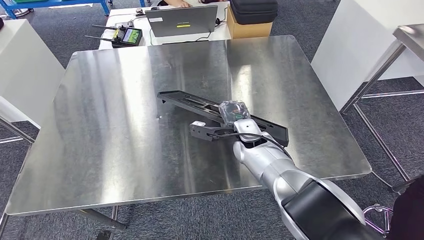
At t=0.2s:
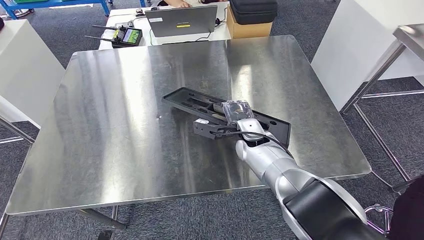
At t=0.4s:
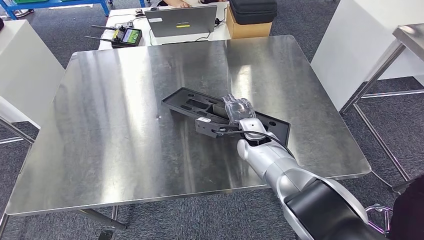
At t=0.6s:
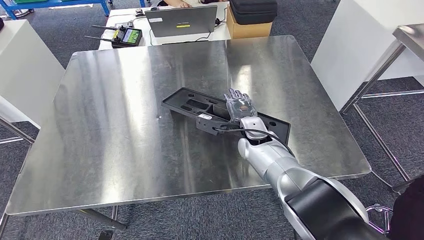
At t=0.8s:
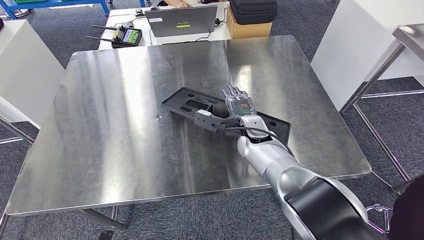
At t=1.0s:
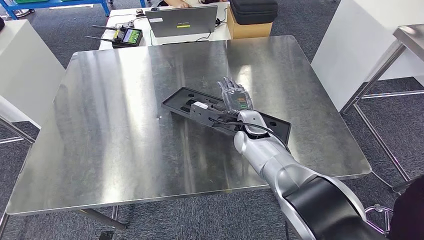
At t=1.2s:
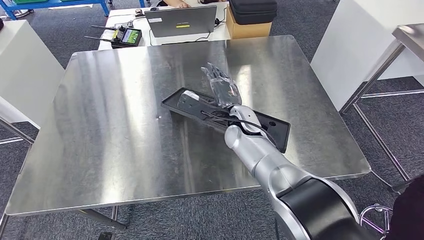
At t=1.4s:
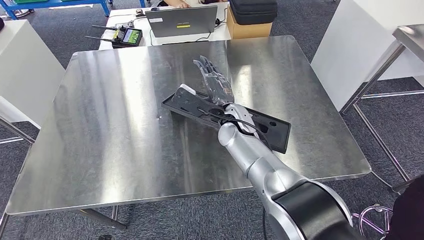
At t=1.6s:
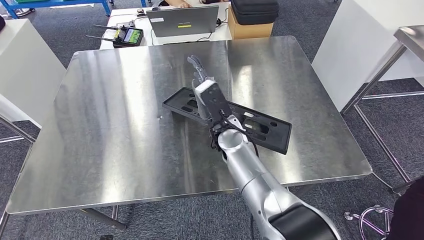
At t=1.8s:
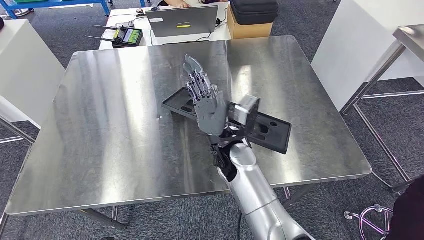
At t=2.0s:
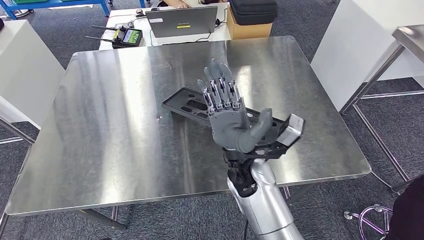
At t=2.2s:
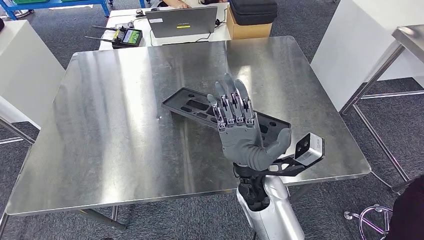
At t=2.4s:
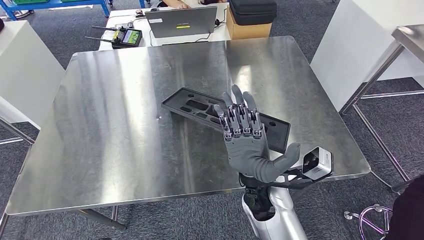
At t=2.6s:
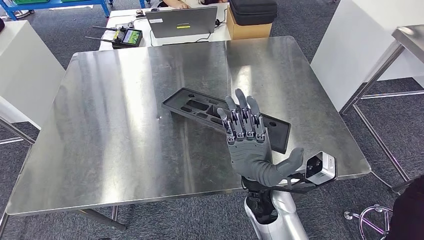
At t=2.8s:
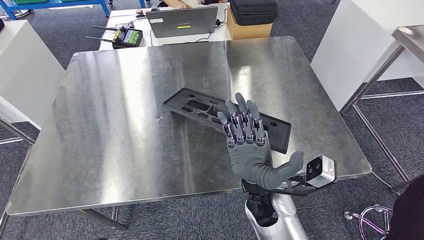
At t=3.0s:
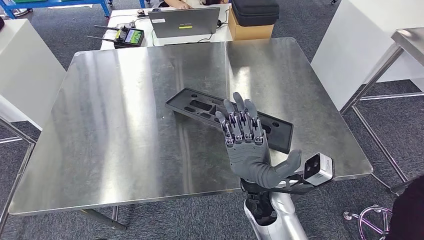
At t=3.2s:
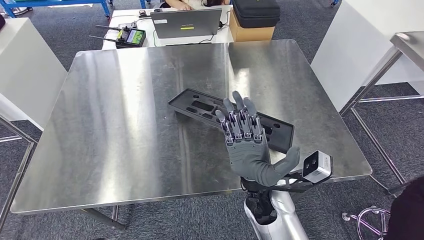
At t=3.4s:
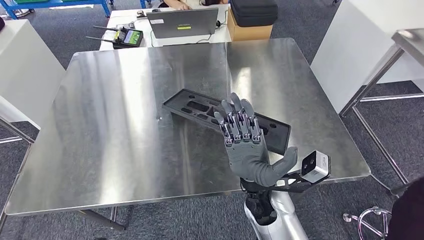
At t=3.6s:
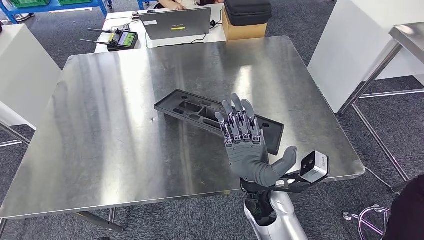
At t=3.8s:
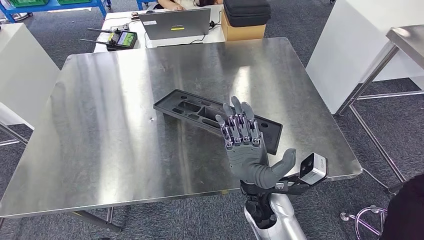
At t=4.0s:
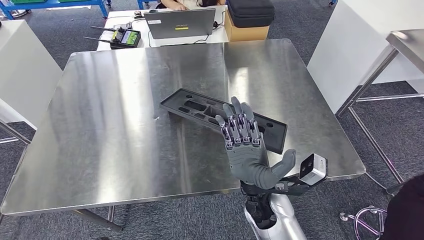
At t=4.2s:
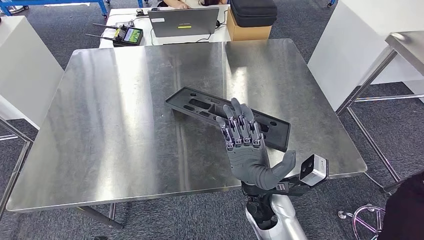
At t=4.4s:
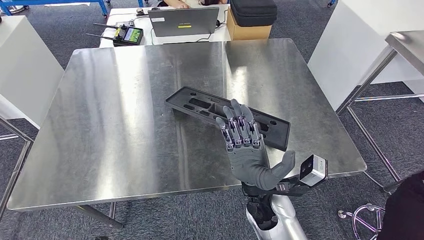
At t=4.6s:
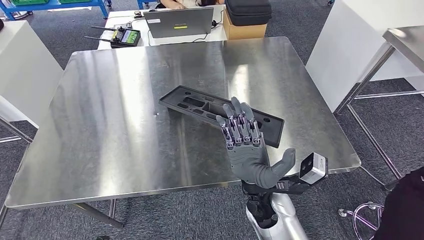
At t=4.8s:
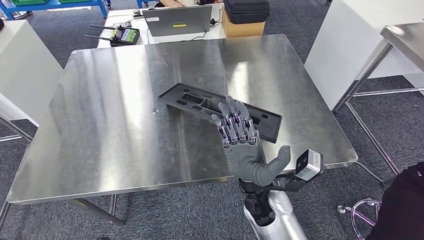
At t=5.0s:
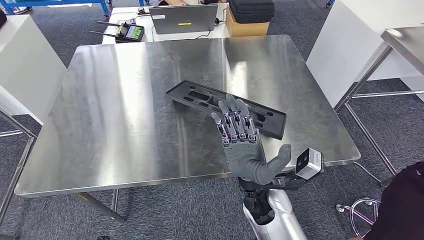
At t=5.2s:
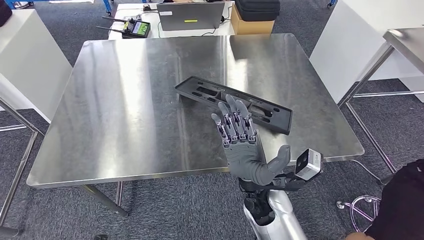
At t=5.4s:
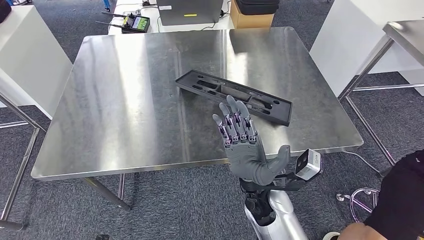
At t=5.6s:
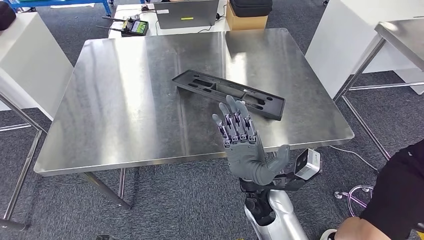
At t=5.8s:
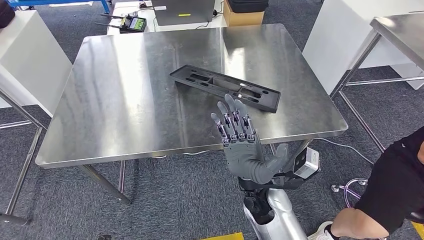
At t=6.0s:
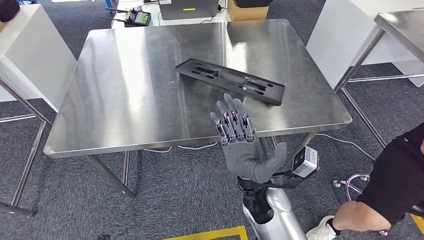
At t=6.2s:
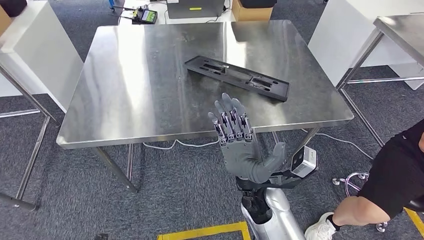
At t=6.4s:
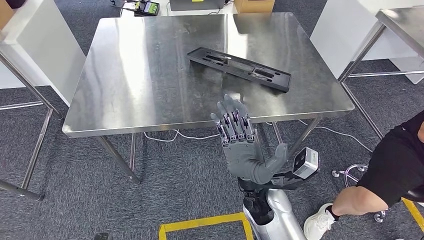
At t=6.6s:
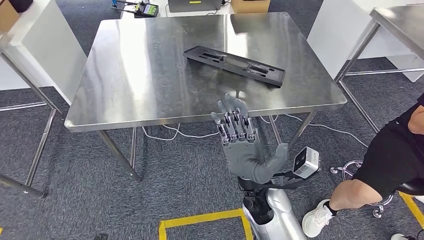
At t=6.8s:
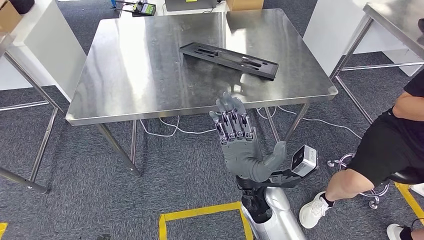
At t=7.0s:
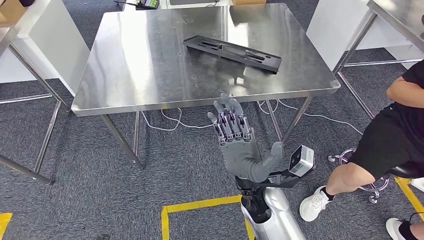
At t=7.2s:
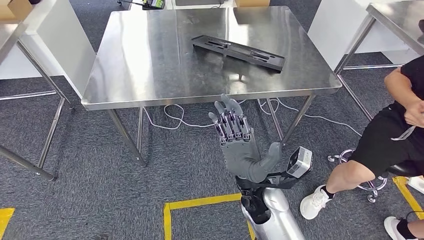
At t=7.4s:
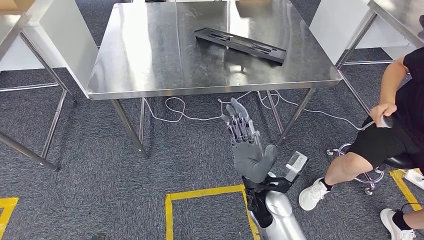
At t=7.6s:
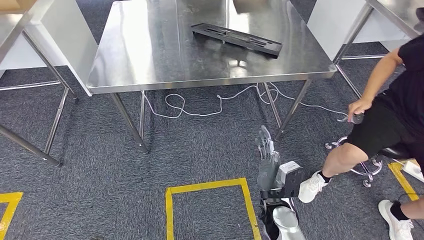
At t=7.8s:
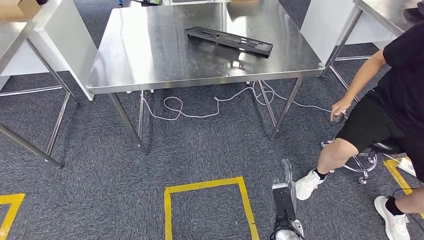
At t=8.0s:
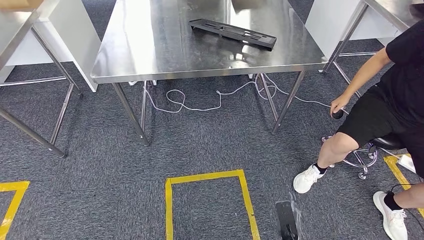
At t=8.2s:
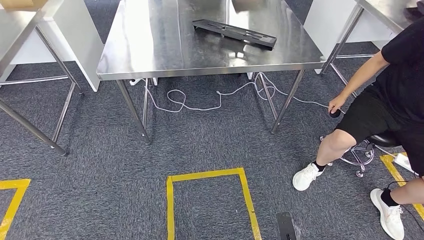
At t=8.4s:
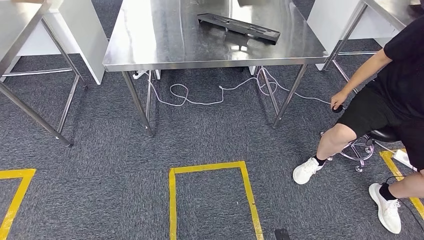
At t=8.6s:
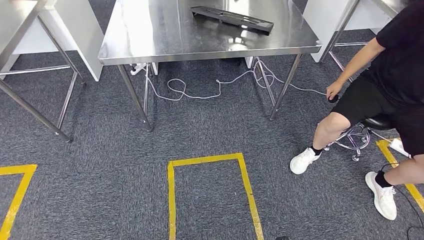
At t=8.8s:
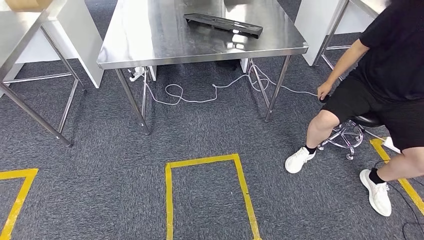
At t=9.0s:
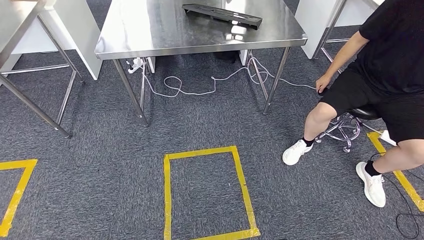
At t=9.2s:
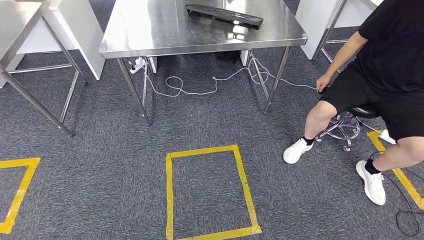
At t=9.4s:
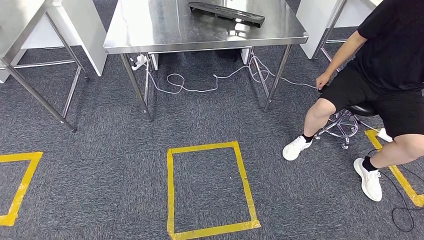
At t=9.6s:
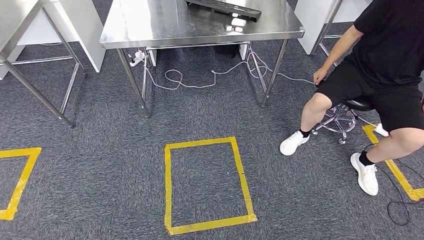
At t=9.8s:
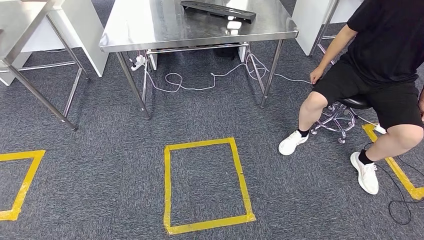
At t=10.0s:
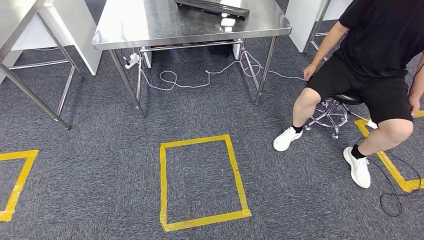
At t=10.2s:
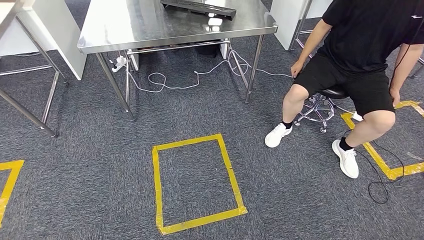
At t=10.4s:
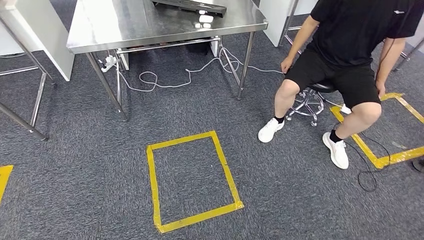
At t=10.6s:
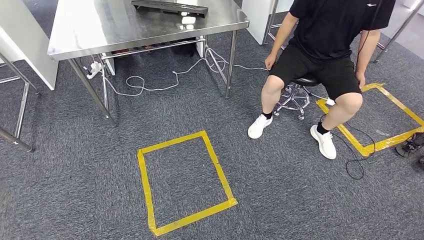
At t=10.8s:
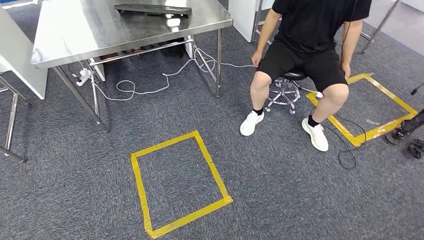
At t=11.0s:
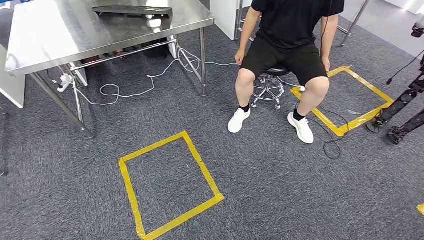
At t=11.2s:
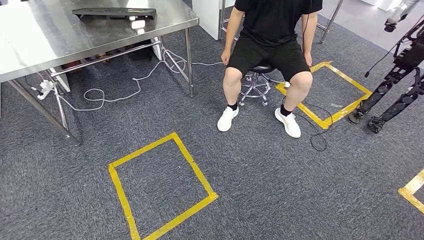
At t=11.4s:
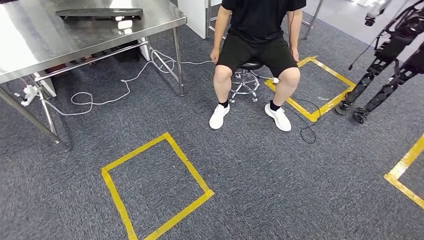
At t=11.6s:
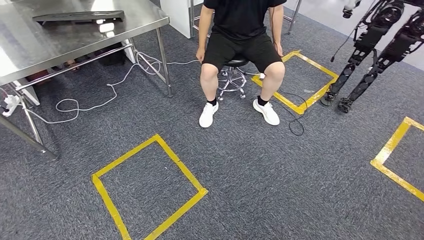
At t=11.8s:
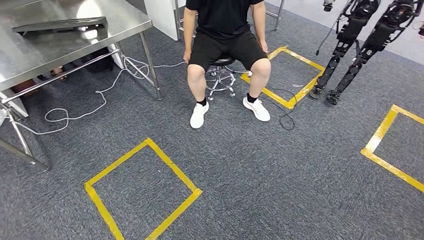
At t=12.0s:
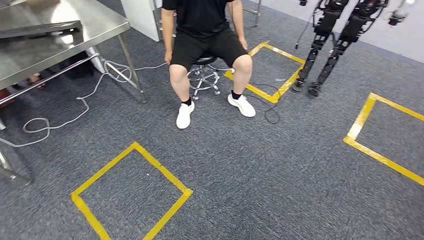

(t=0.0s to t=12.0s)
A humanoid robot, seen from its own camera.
Step, t=0.0s - t=9.0s: Insert the large material into the corresponding hole on the workbench.
t=0.0s - t=1.6s: The right hand travels to the left by roughly 5 cm.
t=1.6s - t=3.0s: The right hand shifts about 15 cm backward and to the right.
t=3.0s - t=4.4s: The hands stay close to where they were, moving slightly.

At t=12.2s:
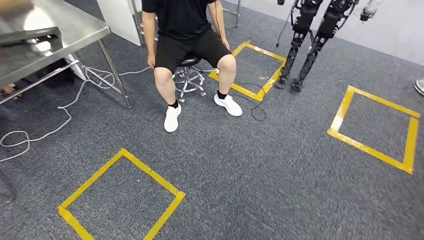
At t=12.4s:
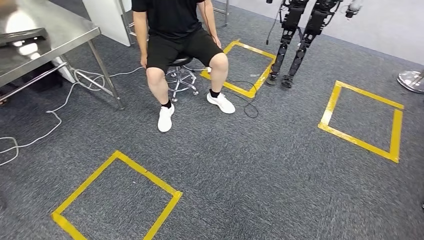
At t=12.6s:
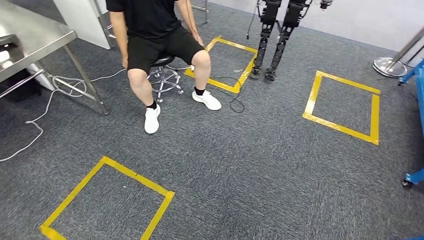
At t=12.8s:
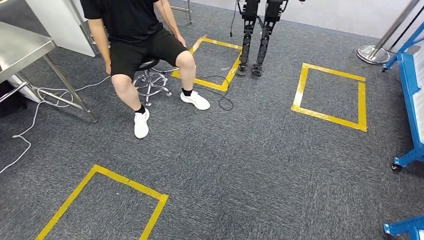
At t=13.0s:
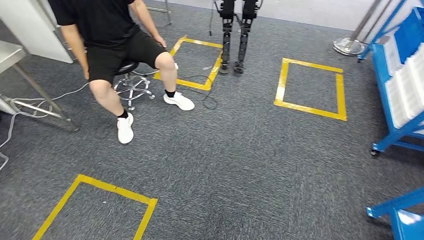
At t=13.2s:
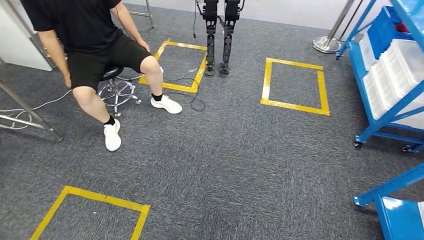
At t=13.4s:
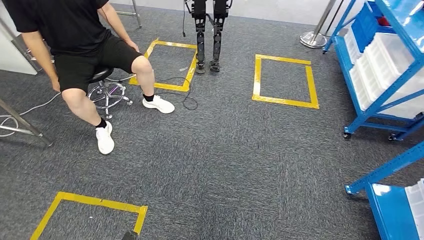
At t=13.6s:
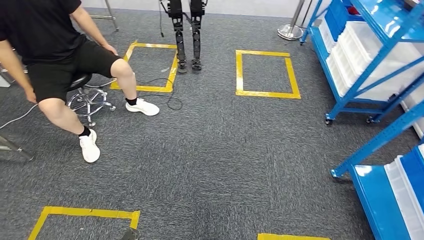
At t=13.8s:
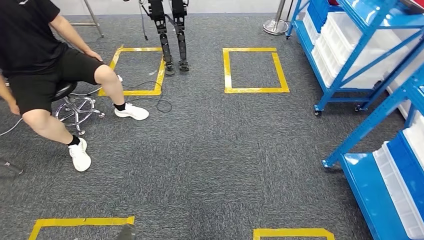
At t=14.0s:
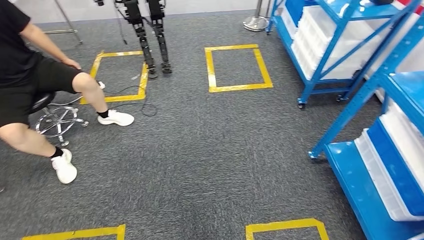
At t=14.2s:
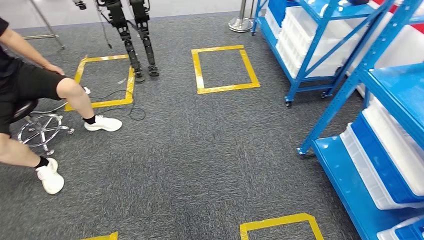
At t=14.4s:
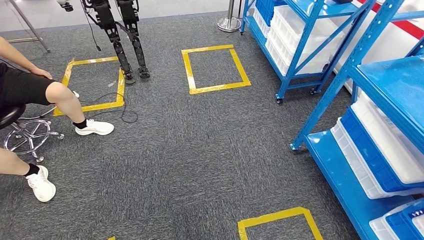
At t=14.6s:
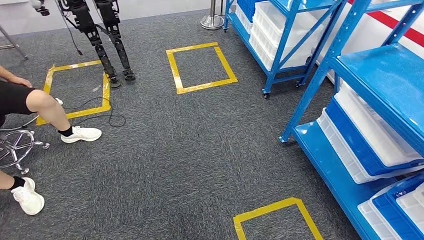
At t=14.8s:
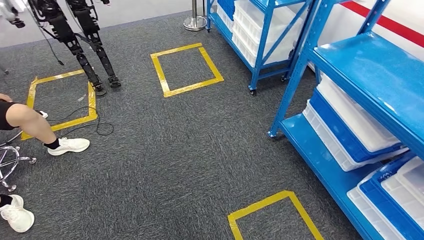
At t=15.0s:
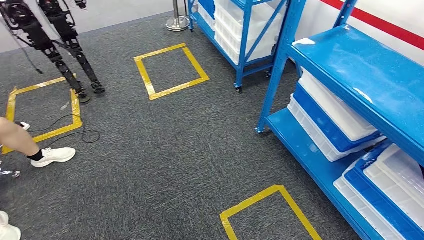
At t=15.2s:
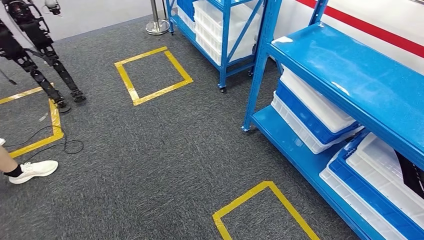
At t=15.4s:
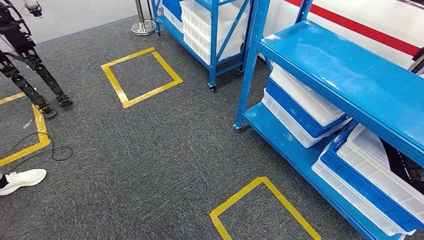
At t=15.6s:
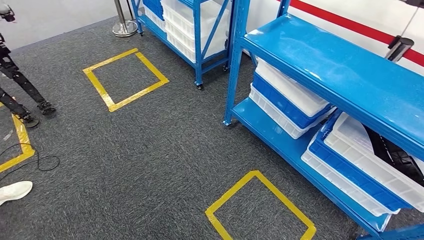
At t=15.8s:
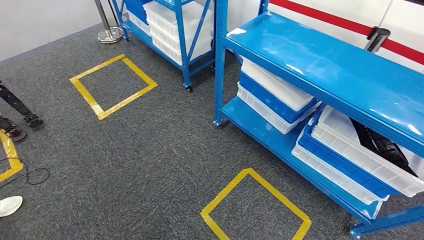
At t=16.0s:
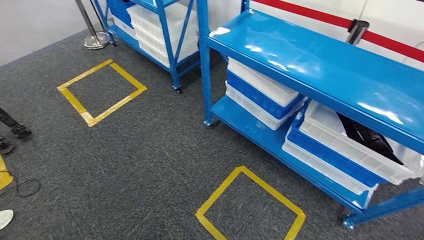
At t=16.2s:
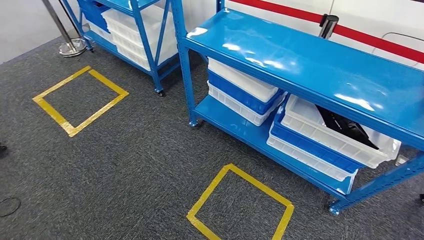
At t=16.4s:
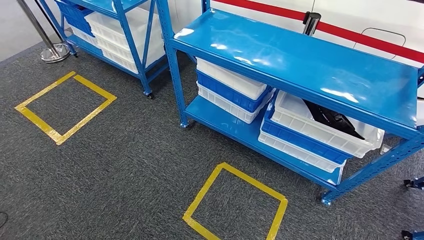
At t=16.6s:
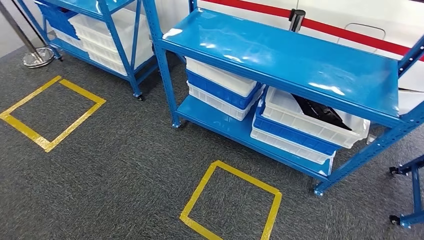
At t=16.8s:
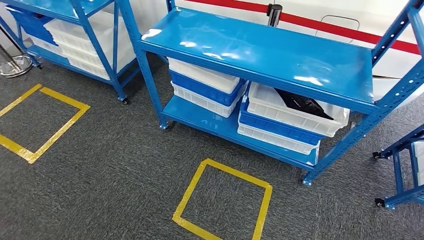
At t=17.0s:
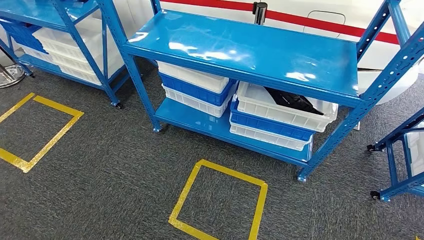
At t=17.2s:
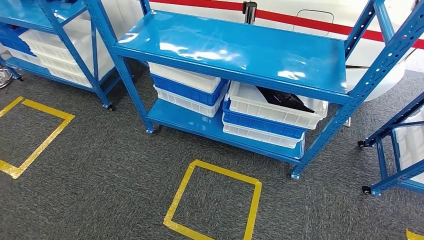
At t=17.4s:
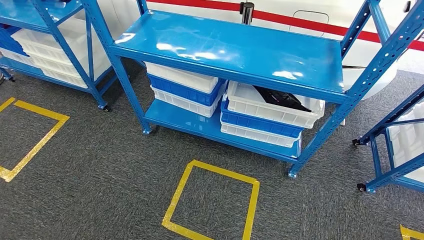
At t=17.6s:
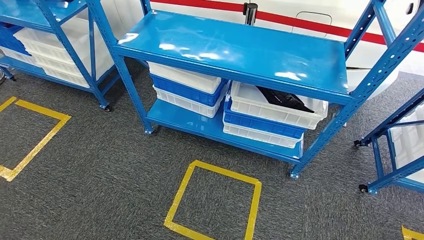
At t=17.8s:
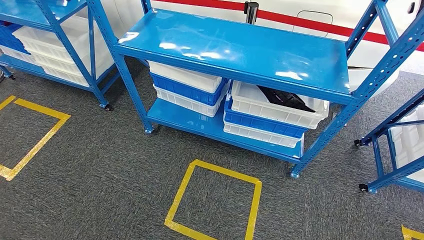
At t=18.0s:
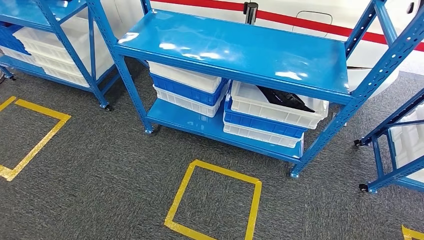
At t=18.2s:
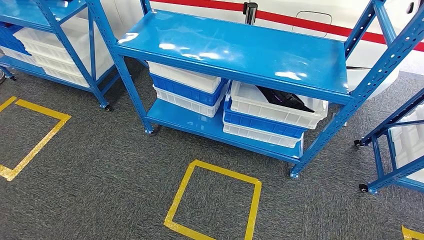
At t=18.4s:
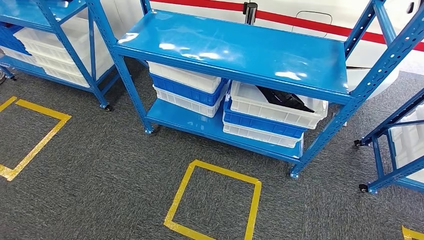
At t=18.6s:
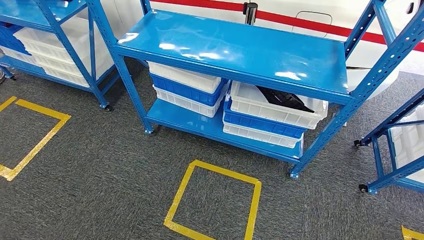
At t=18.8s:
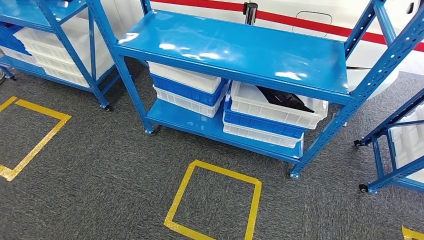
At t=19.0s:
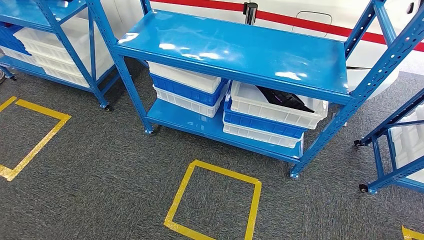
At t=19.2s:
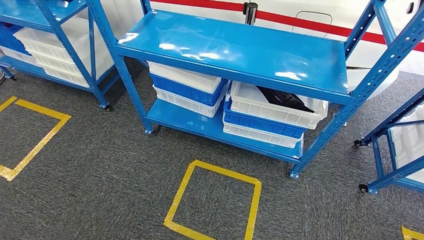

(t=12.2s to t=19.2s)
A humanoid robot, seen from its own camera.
t=17.8s - t=19.2s: The right hand shifts about 5 cm backward.